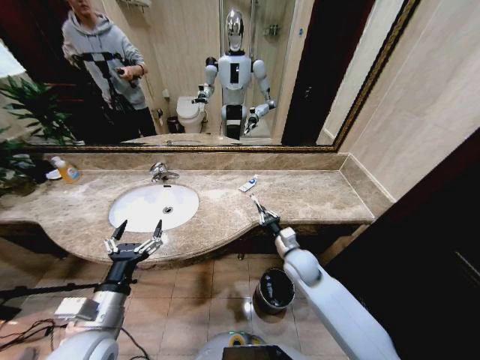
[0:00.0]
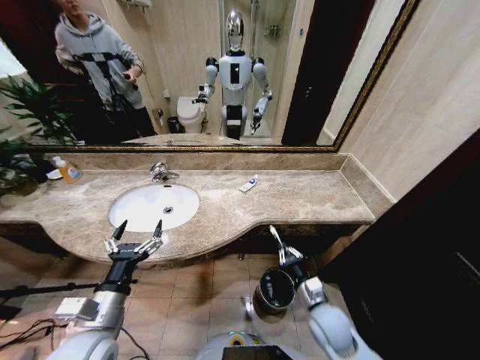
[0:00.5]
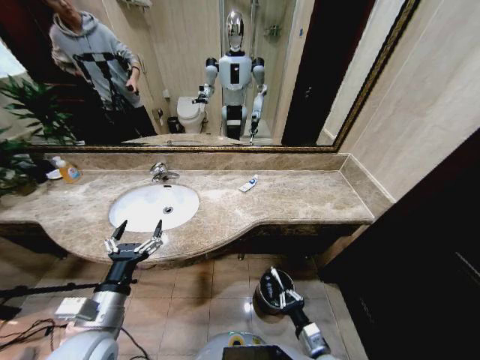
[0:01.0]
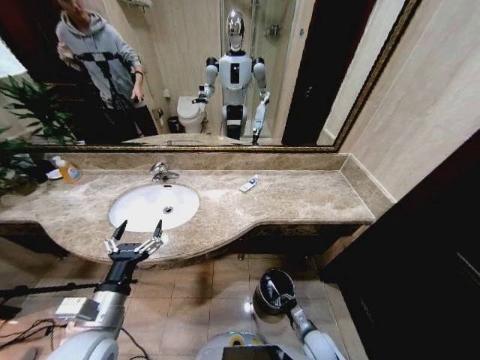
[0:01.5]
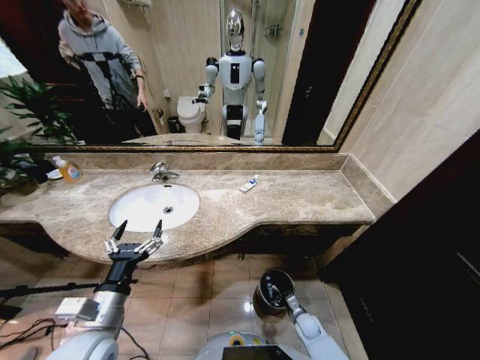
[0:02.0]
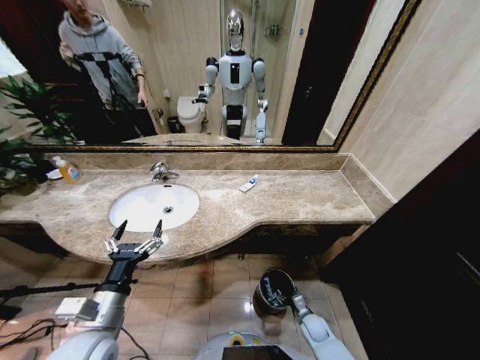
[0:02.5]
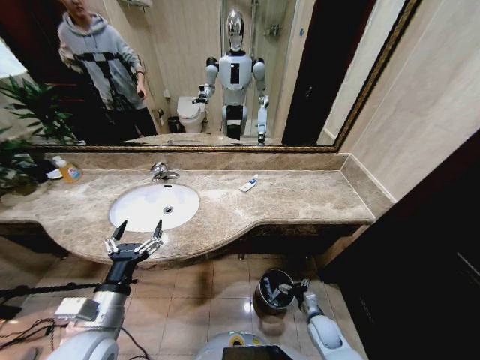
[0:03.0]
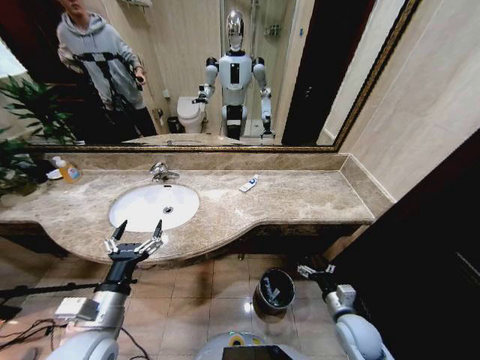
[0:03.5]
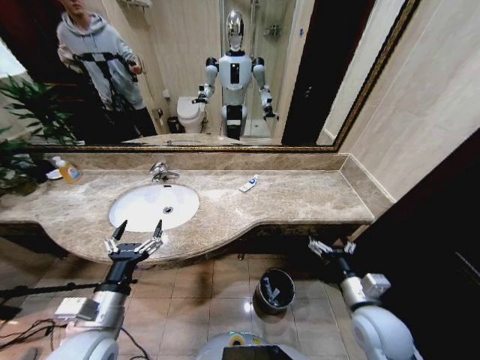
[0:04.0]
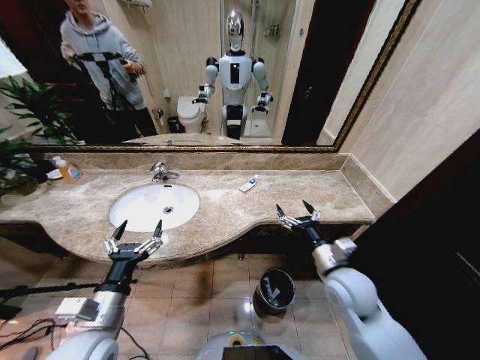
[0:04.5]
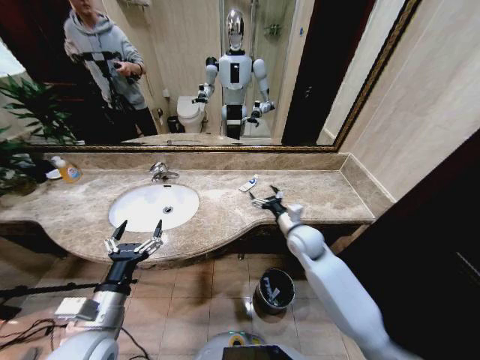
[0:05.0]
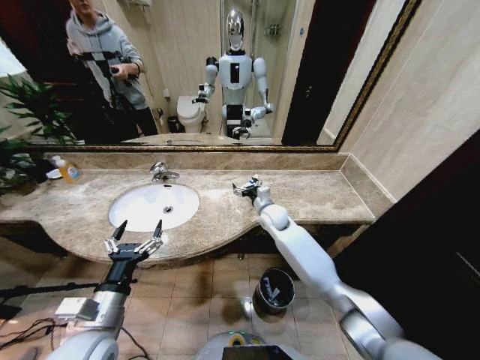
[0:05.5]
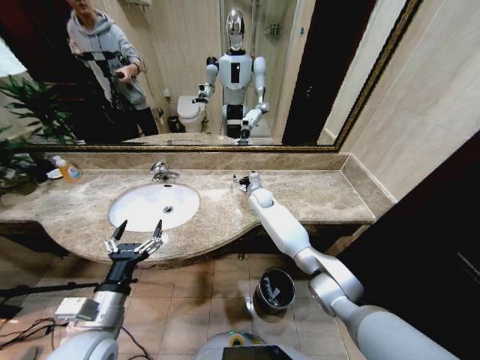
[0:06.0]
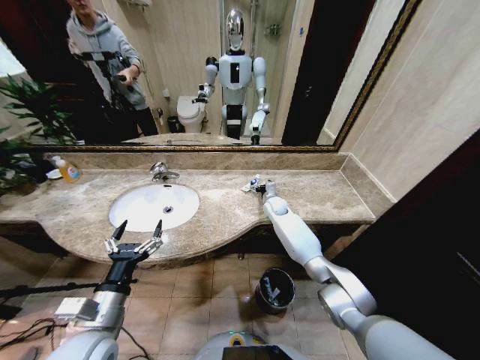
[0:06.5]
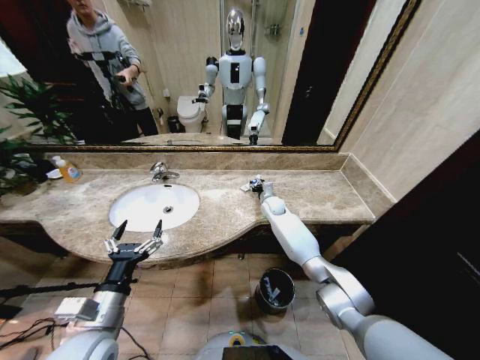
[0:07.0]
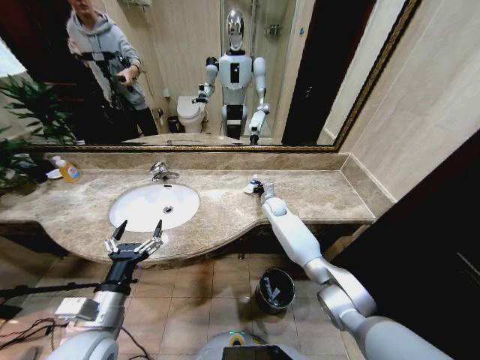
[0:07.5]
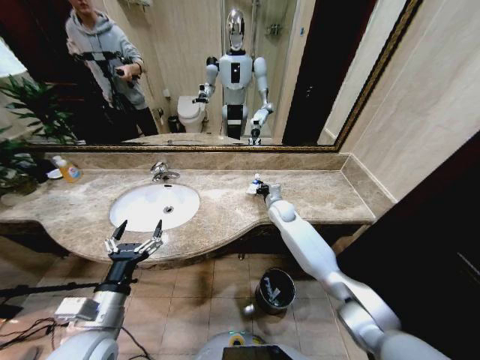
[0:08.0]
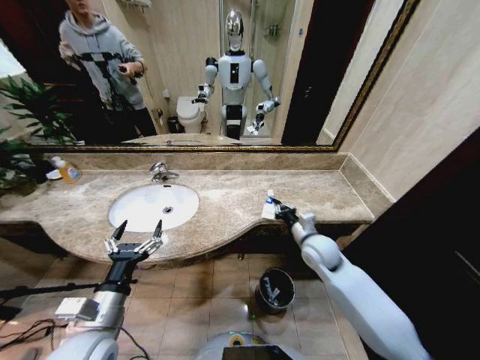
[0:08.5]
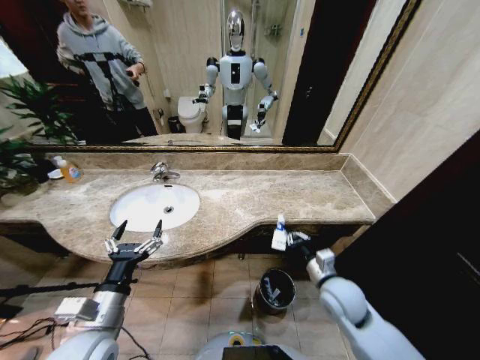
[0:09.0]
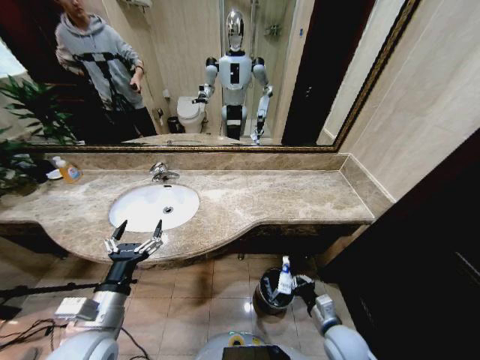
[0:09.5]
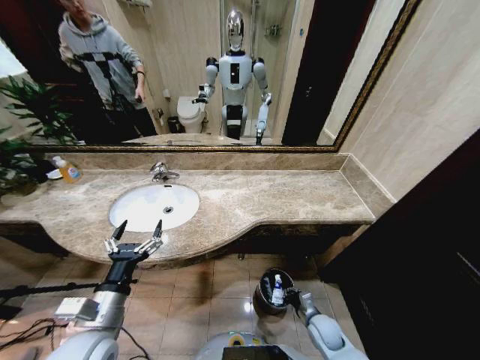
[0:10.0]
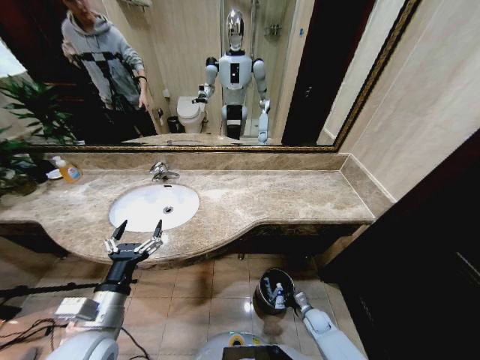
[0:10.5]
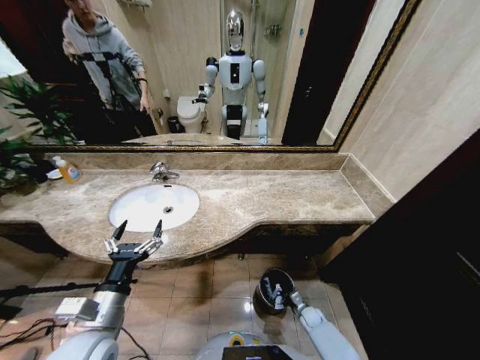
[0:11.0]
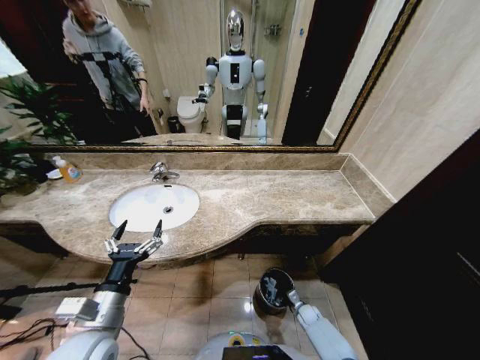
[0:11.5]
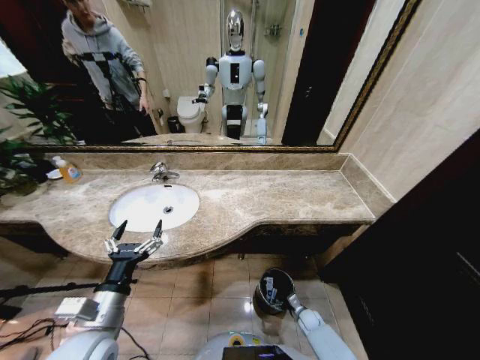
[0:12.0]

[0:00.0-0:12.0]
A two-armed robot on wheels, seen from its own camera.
Task of the whole recording: Pick up the trash from the sink and place it in the trash bin.
0:00.0 to 0:02.0: The right gripper travels downward by some 30 cm.
0:02.0 to 0:04.0: The right gripper moves upward, approximately 35 cm, and opens.
0:04.0 to 0:06.0: The right gripper heads forward and to the left, covering roughly 50 cm.
0:06.0 to 0:08.0: The right gripper goes about 10 cm to the right and backward, and closes.
0:08.0 to 0:10.0: The right gripper is displaced backward and downward by roughly 40 cm.
0:10.0 to 0:12.0: The right gripper heads downward, covering about 15 cm, and opens its fingers.

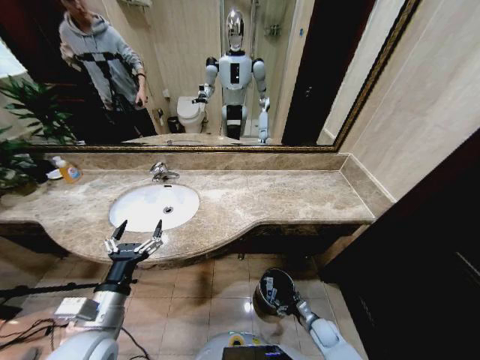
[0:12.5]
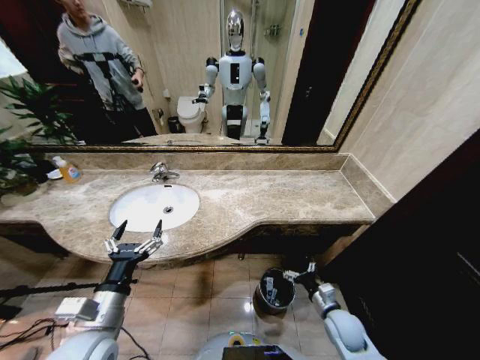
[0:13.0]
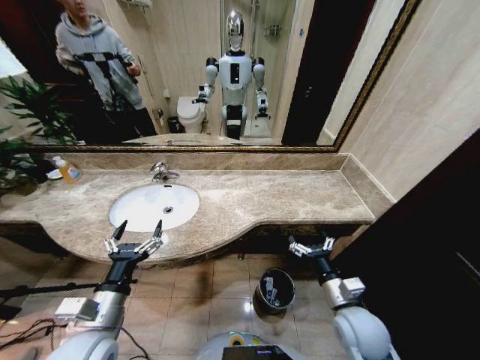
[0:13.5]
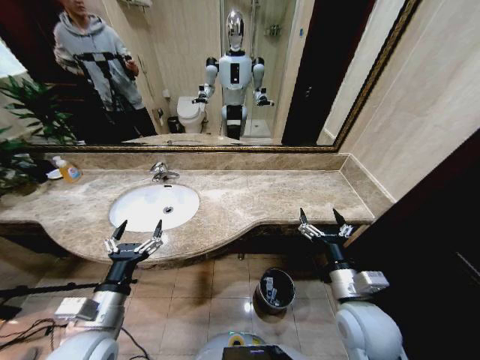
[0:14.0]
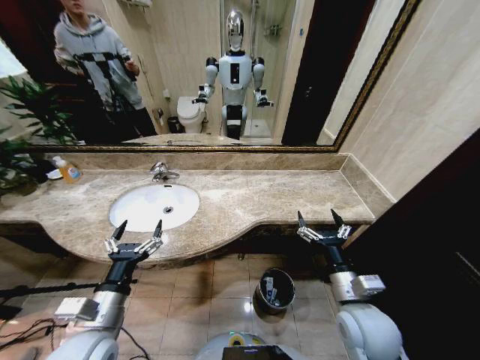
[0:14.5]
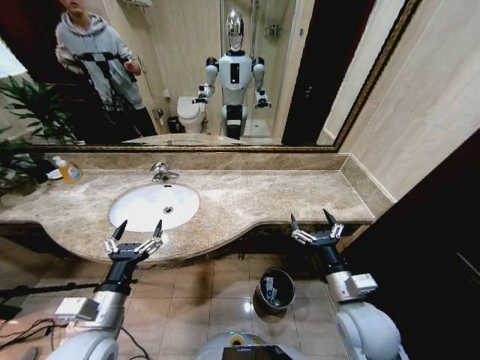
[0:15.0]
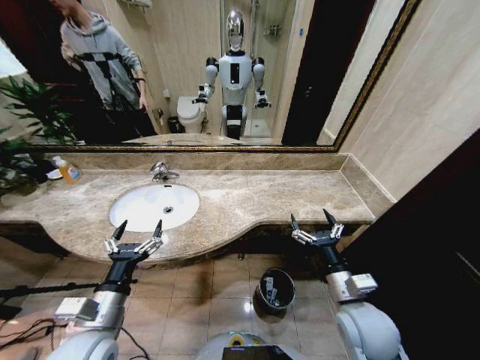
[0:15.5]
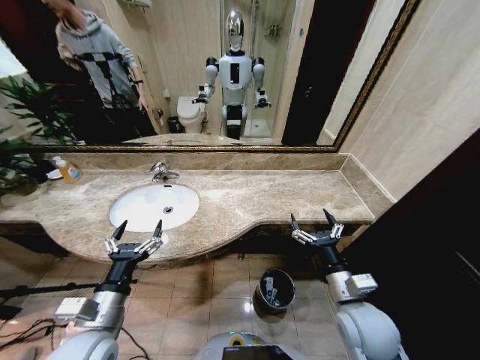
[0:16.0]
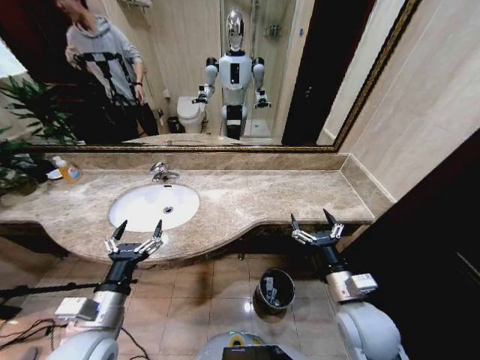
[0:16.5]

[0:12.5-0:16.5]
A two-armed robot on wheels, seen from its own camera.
Task of the whole recording: Pick up the trash from the sink and place it in the trash bin.
0:12.5 to 0:14.5: The right gripper heads upward, covering some 35 cm.
0:14.5 to 0:16.5: Both grippers stay about where they are.

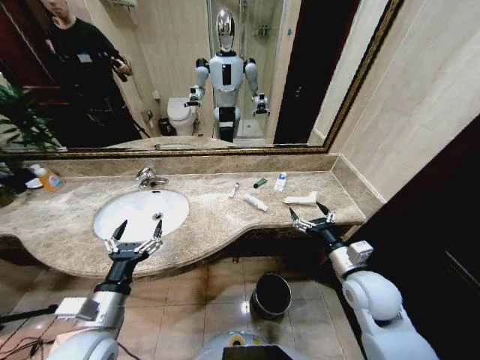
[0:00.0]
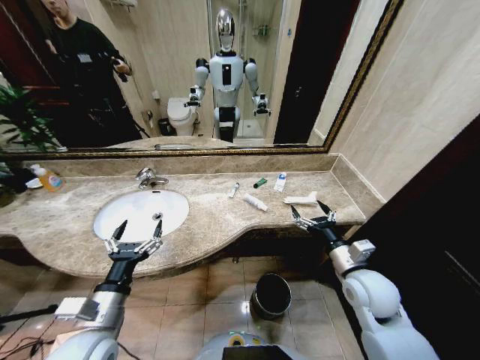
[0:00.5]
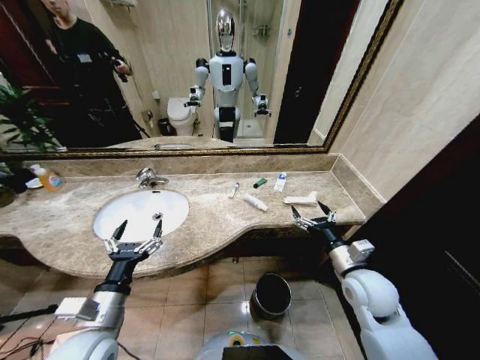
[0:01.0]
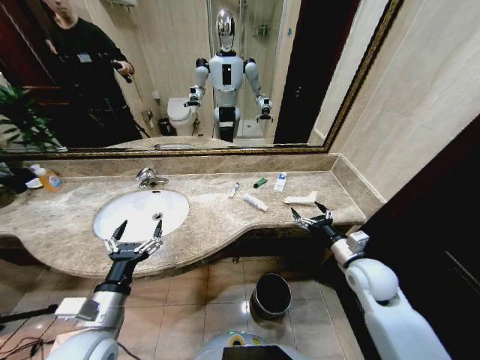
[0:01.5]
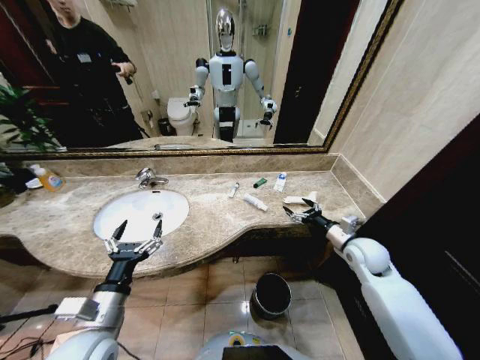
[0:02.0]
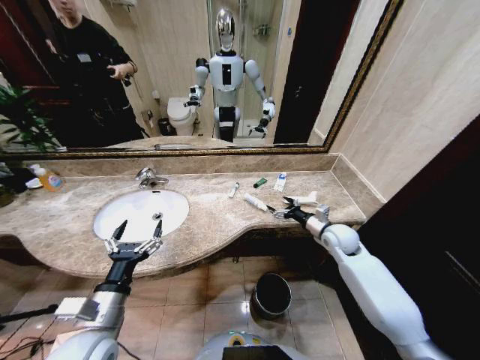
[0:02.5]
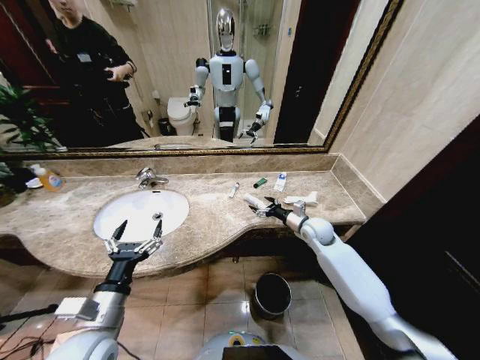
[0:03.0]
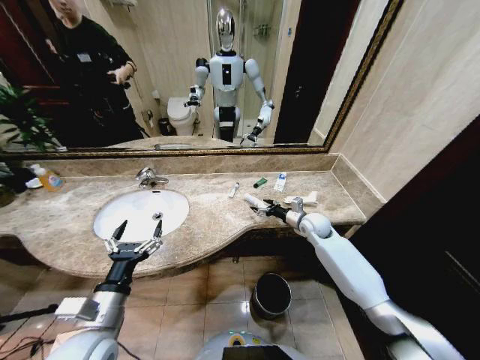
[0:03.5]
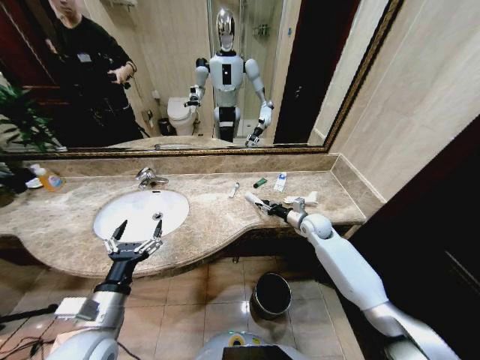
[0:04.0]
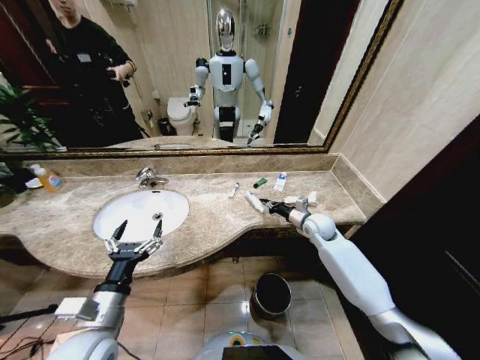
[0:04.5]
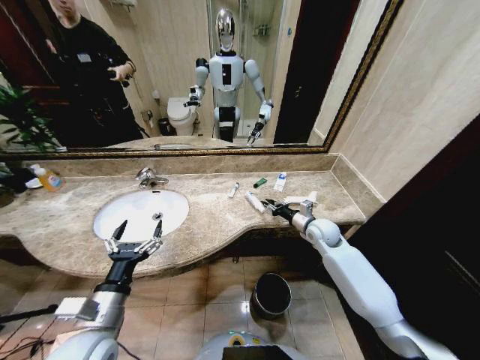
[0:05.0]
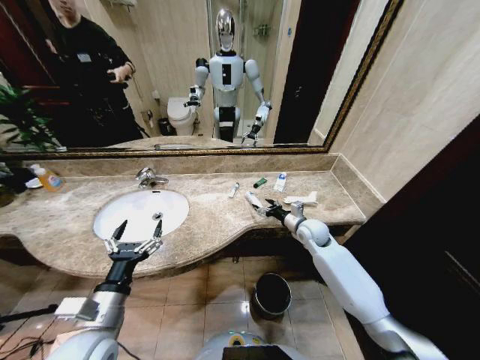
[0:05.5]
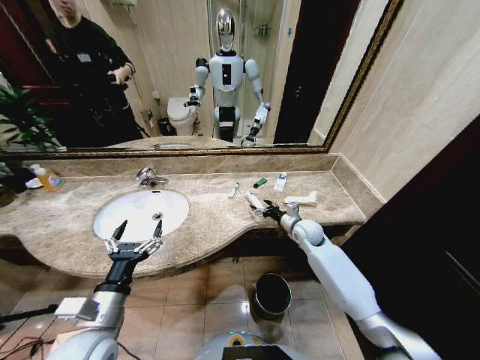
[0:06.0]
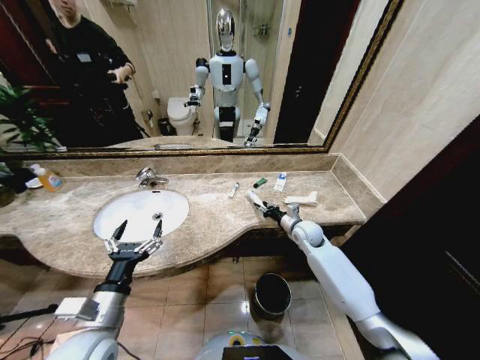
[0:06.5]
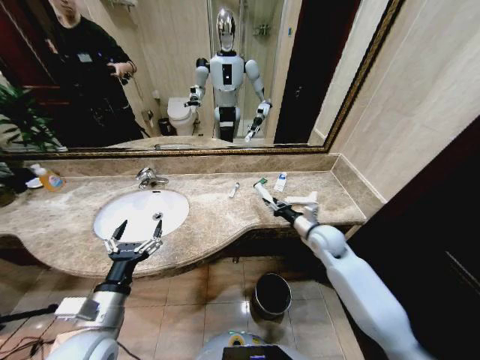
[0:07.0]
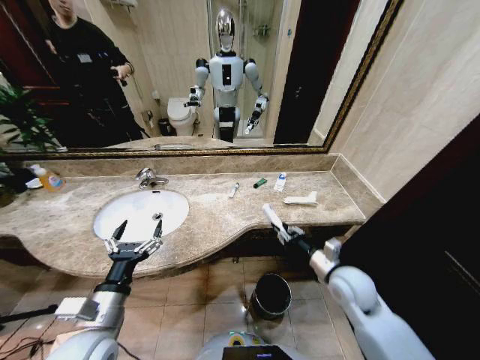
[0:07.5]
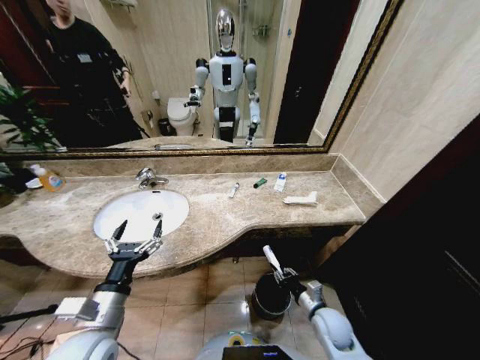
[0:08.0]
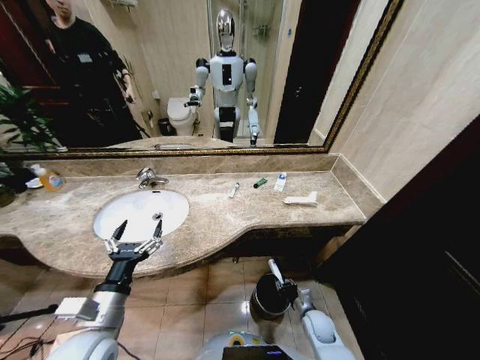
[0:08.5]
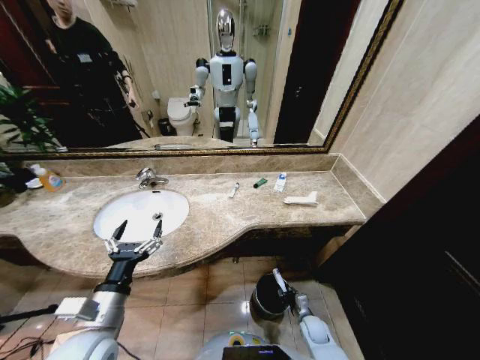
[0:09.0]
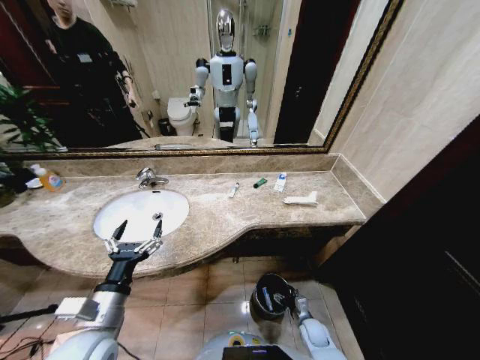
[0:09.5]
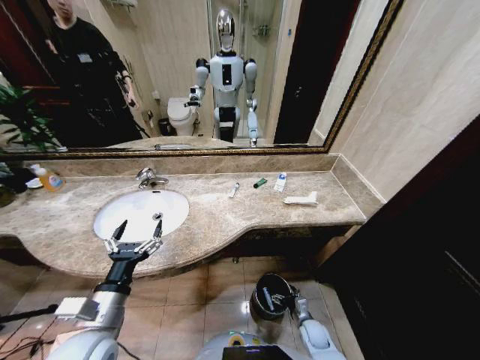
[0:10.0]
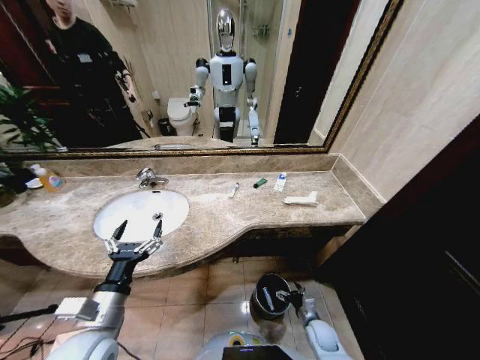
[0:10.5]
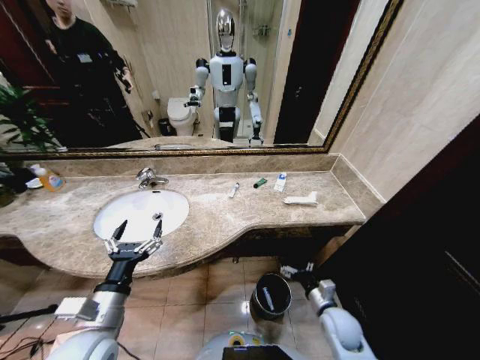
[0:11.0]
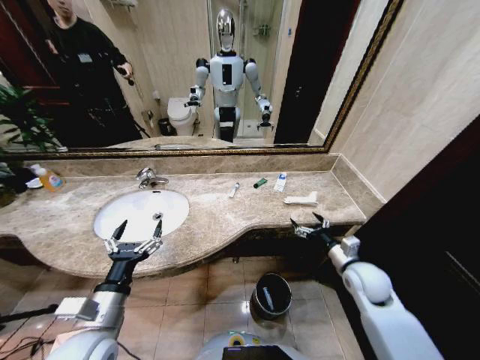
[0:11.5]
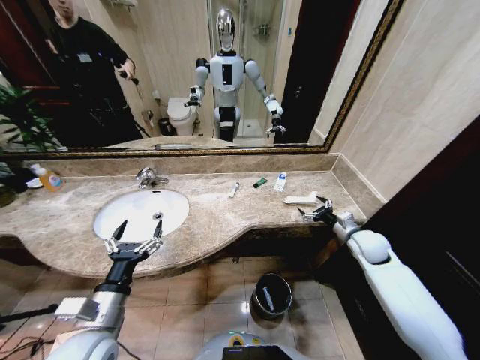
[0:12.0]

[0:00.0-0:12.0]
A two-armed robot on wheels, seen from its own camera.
Task of the whole recording: Pick up the trash from the sink and place it in the trash bin.
0:02.0 to 0:04.0: The right gripper moves forward and to the left, roughly 15 cm, and closes up.
0:04.0 to 0:06.0: The right gripper opens its fingers.
0:06.0 to 0:08.0: The right gripper heads backward and downward, covering some 25 cm, and closes its fingers.
0:08.0 to 0:10.0: The right gripper goes some 15 cm downward, and opens its fingers.
0:10.0 to 0:12.0: The right gripper is displaced upward, forward and to the right by roughly 40 cm.
